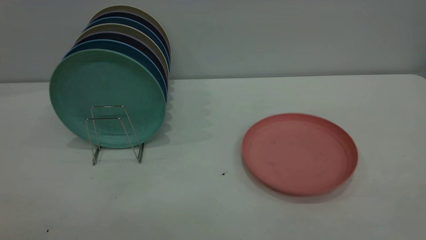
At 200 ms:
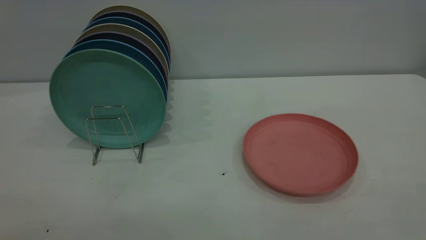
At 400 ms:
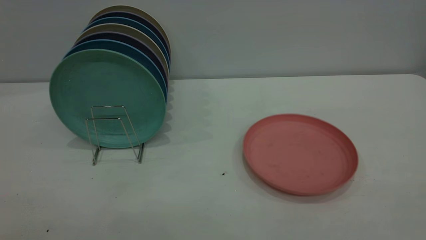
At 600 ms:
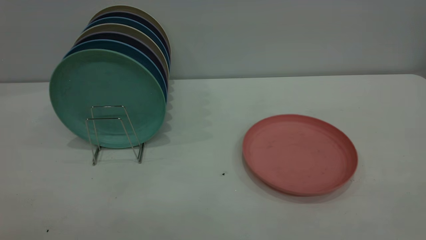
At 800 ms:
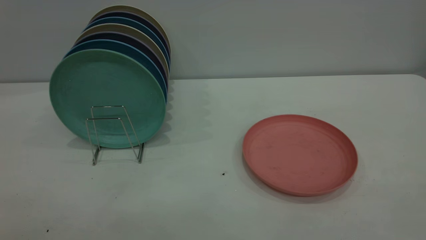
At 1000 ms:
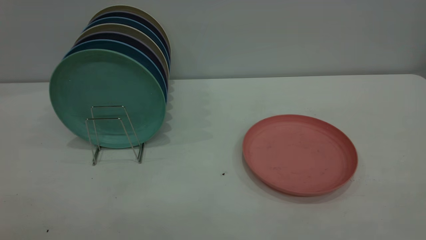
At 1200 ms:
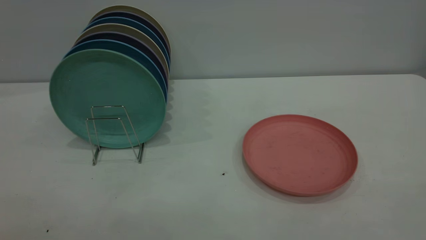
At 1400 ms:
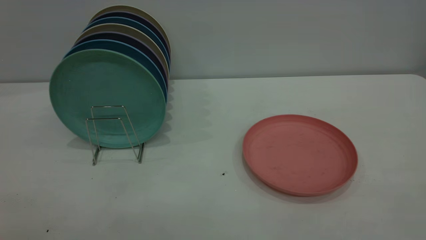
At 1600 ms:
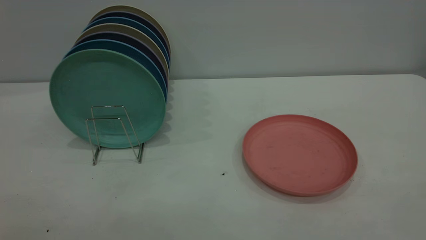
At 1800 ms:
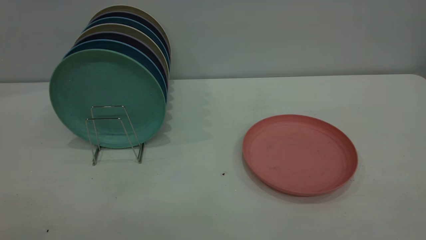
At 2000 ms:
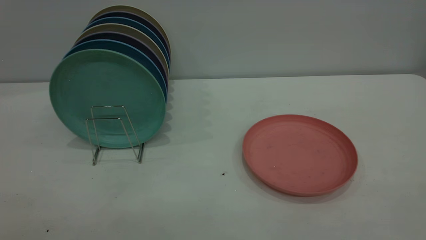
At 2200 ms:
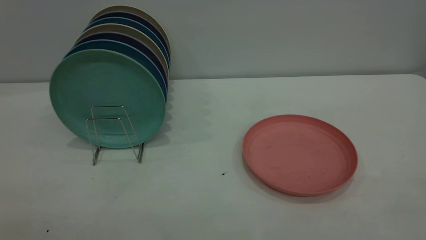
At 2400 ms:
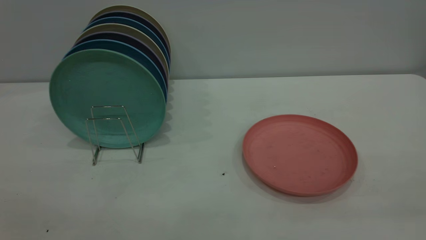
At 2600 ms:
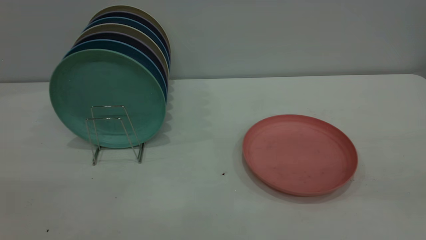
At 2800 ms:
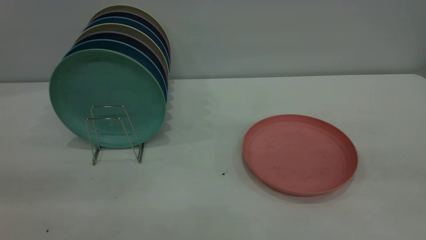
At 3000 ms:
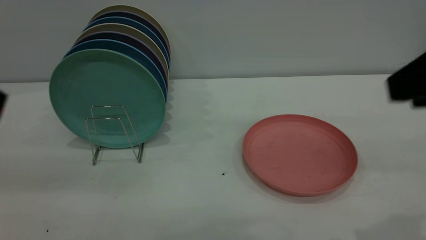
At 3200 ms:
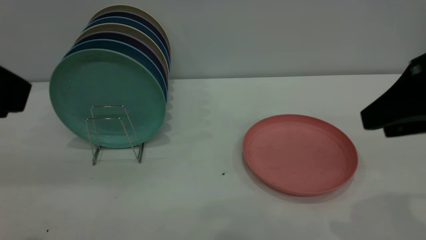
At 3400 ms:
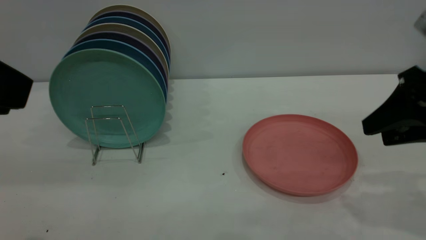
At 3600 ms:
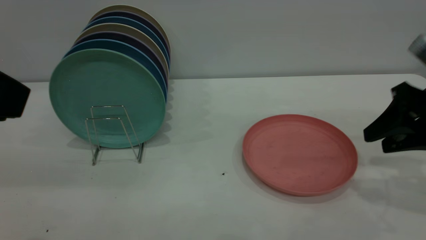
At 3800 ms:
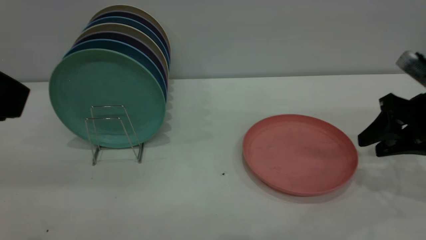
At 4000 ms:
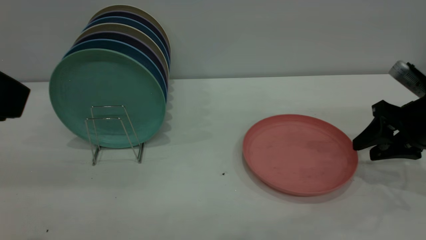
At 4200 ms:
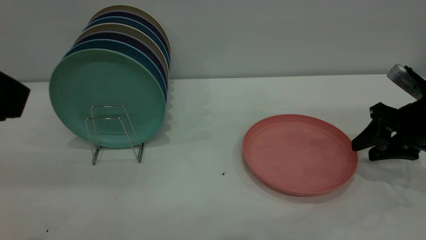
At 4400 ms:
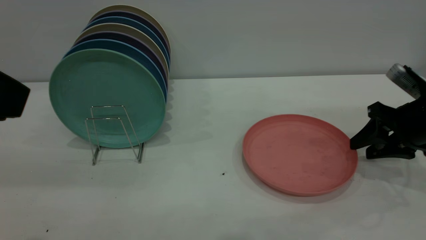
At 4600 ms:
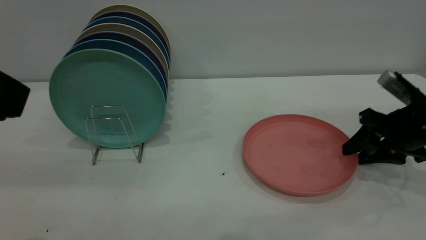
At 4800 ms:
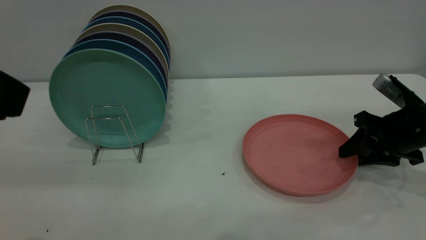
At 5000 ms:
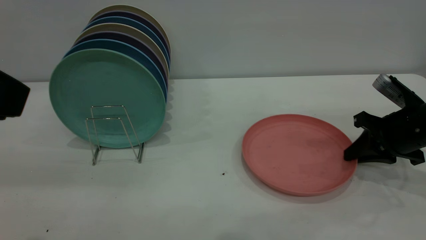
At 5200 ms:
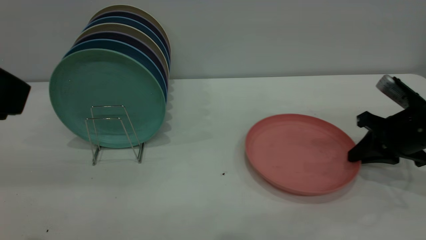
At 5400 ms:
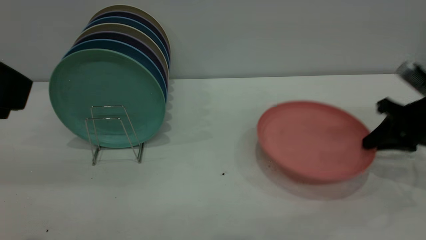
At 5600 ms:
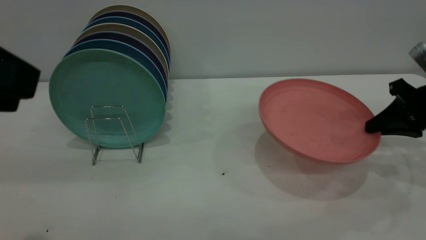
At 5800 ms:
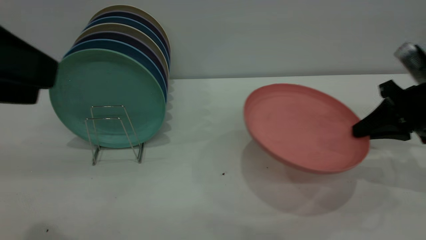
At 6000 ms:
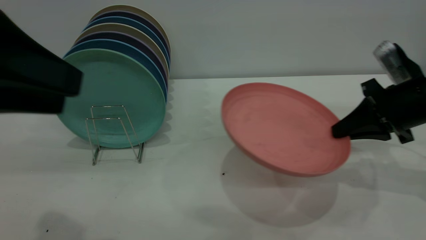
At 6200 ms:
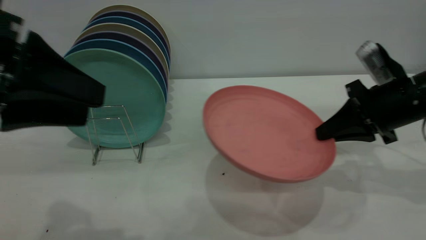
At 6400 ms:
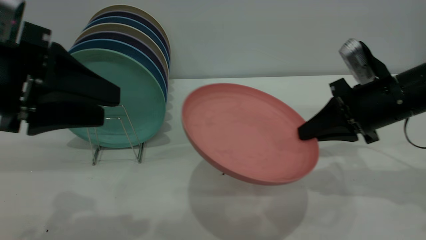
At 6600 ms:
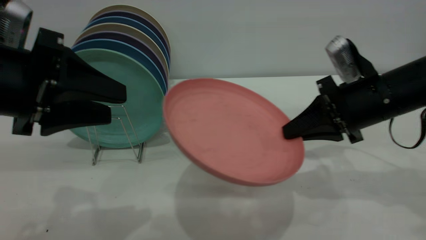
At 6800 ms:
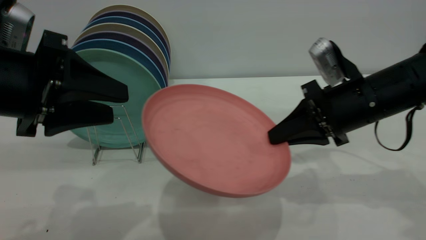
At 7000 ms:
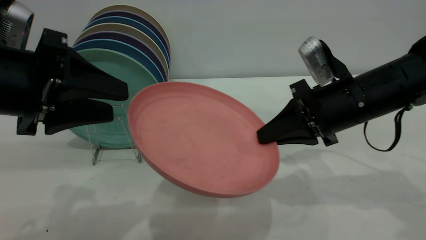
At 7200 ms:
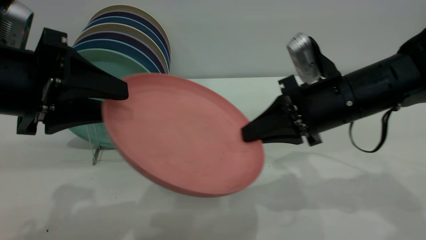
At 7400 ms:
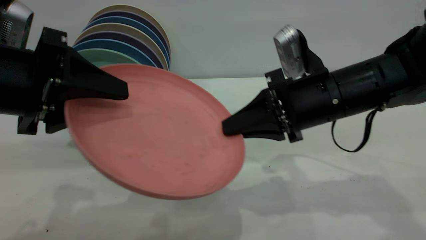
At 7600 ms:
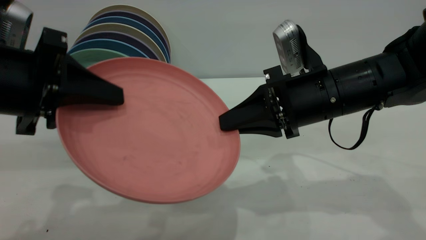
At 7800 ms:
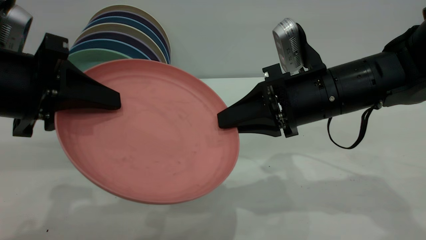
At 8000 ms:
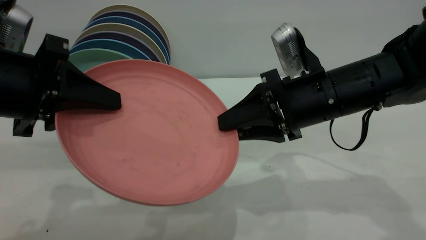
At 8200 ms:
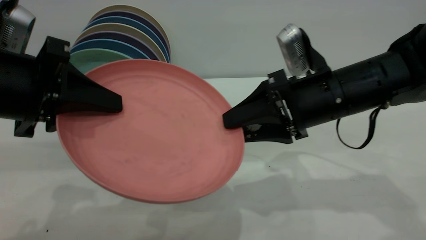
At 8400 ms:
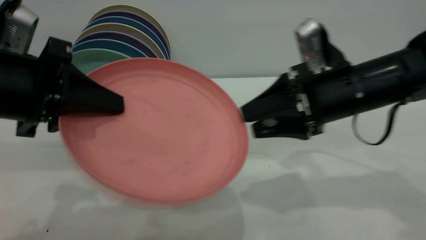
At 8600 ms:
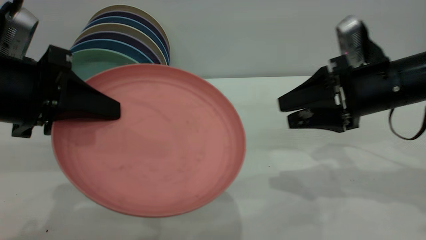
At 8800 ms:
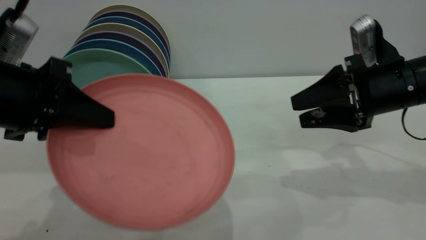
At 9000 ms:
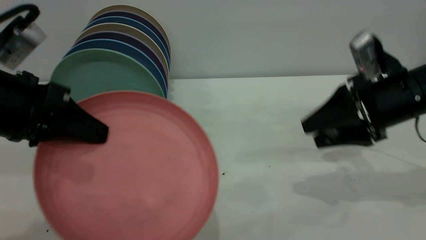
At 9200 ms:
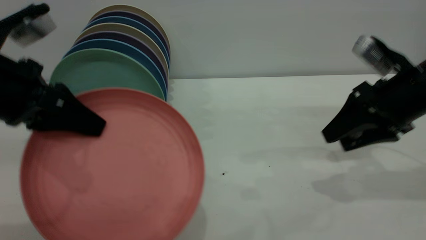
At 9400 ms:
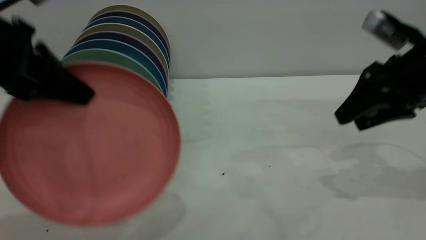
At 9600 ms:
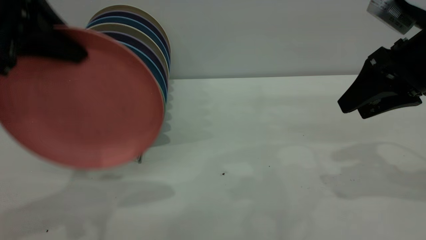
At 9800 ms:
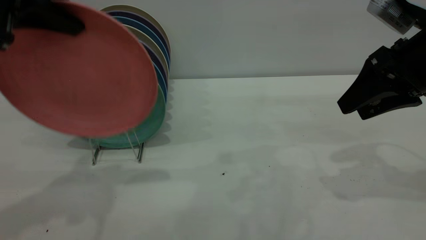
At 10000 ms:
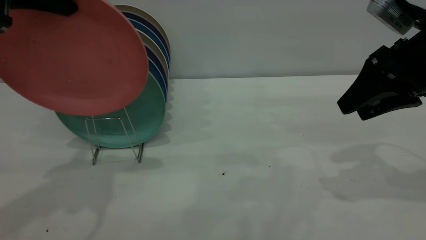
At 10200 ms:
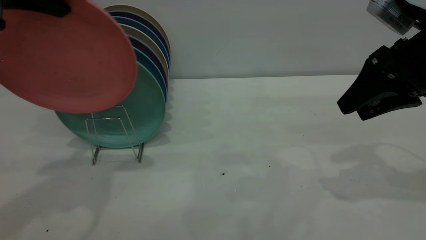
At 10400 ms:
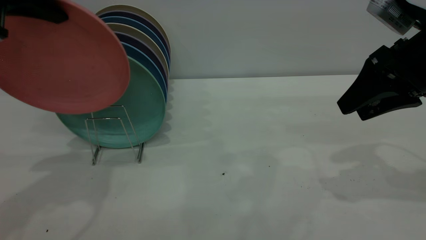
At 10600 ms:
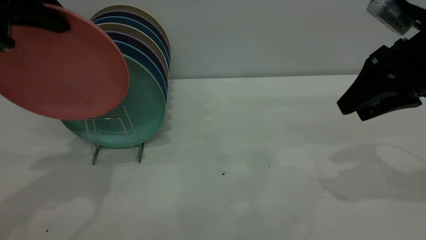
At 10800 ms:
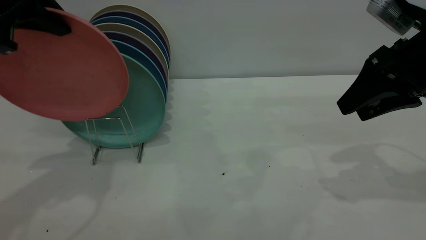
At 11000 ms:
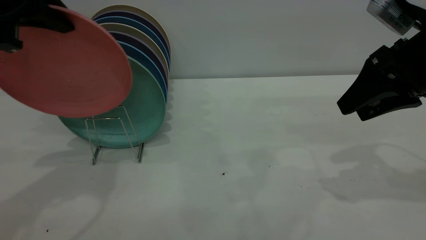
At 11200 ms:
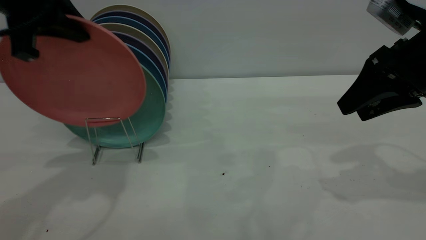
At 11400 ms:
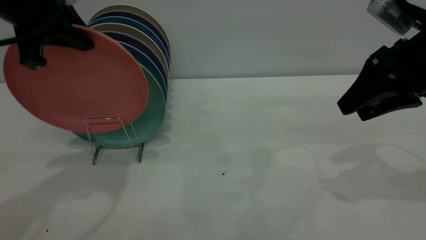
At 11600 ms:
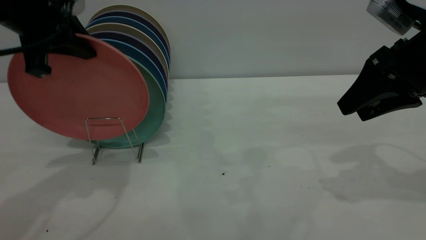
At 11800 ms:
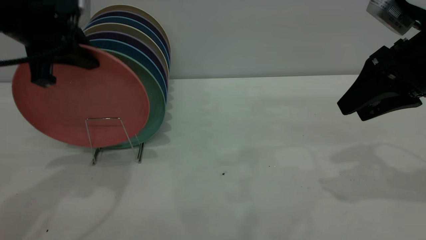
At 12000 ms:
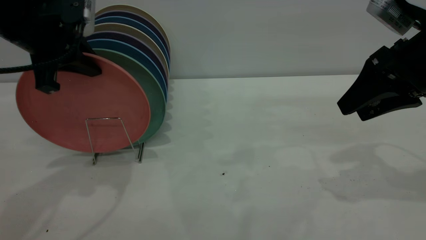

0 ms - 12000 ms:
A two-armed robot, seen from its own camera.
Task of the whole recording: the right gripper grasp the pink plate, the right gripper pass the pink plate to the left gripper, and the left gripper place the pink plate on the plate rack.
Step, 0 ms - 5400 ms: Pick up the plate with the right gripper.
Step, 5600 ms - 8400 ms: Pass the plate from the right gripper to the left gripper.
0 ms - 1600 ms: The two grippers keep their place.
1600 ms - 3000 ms: The right gripper is displaced forward by approximately 20 cm.
3000 ms - 4400 ms: The right gripper is displaced downward and forward by approximately 25 cm.
4400 ms - 6000 ms: The left gripper ends up some 5 cm from where it was. The right gripper shifts by approximately 5 cm, and closes up.
6000 ms - 7600 ms: The left gripper goes roughly 5 cm downward, and closes up, while the right gripper travels to the left by roughly 15 cm.
7600 ms - 9000 ms: The right gripper travels to the right by approximately 10 cm, and opens up.
9000 ms - 10400 ms: The left gripper travels upward and forward by about 15 cm. Meanwhile the right gripper goes approximately 5 cm upward.
10400 ms - 12000 ms: The left gripper is displaced downward by approximately 5 cm.

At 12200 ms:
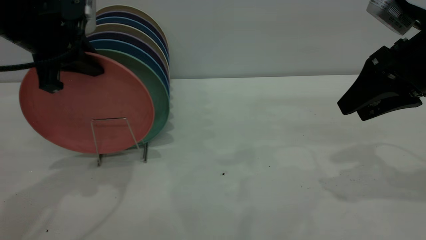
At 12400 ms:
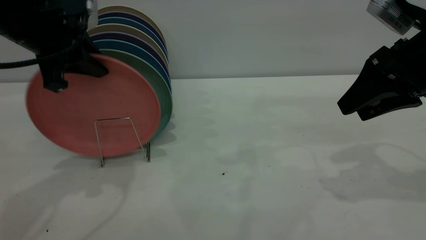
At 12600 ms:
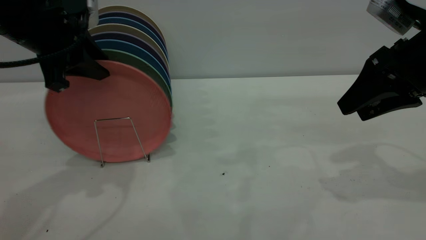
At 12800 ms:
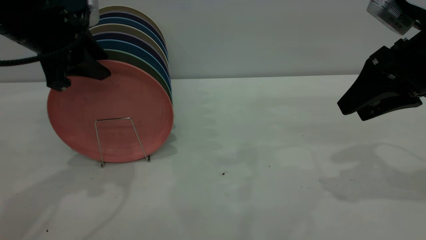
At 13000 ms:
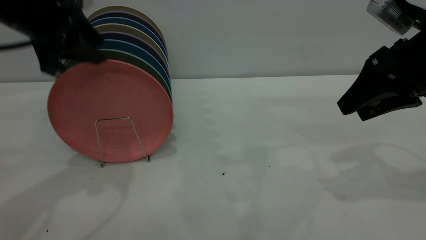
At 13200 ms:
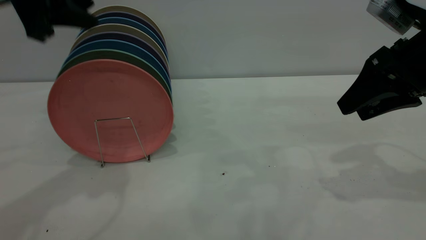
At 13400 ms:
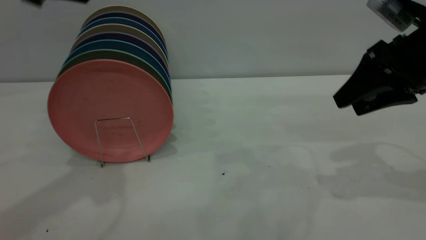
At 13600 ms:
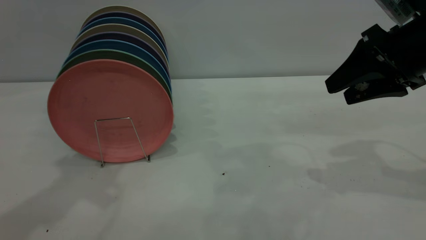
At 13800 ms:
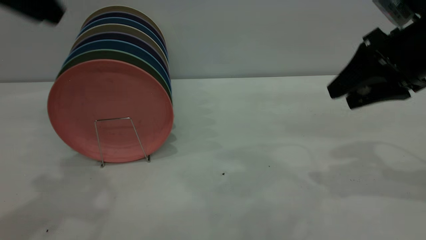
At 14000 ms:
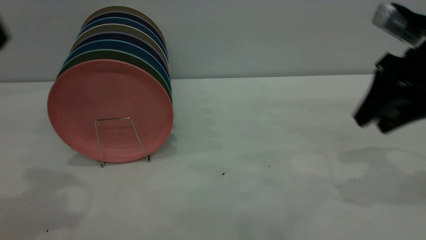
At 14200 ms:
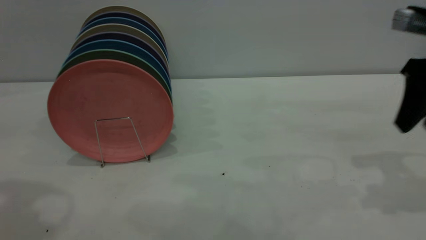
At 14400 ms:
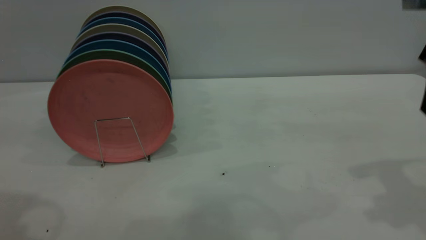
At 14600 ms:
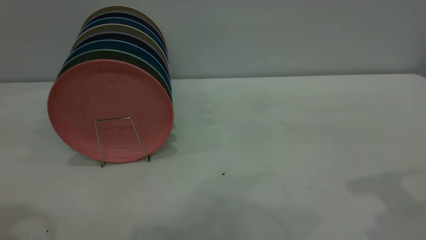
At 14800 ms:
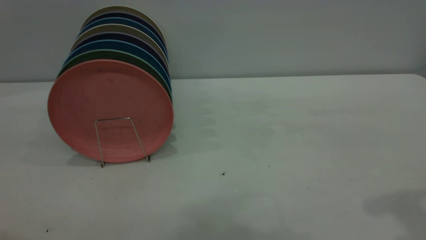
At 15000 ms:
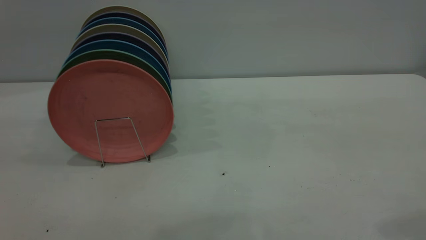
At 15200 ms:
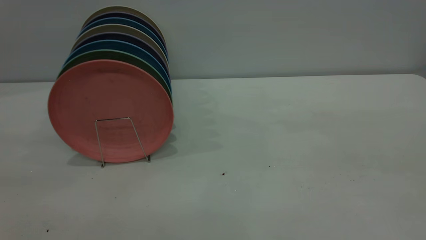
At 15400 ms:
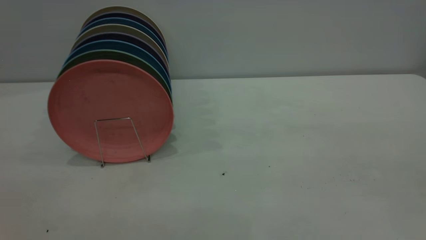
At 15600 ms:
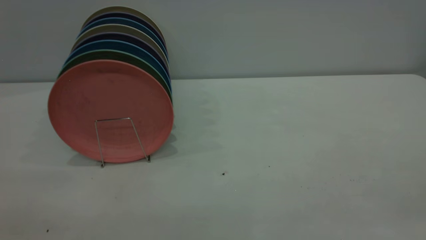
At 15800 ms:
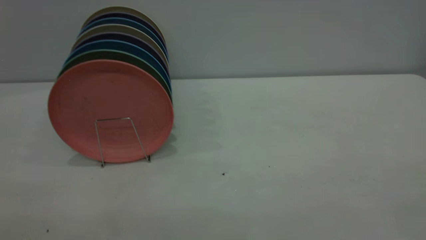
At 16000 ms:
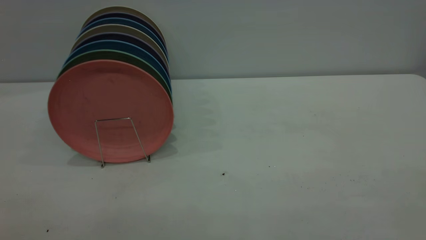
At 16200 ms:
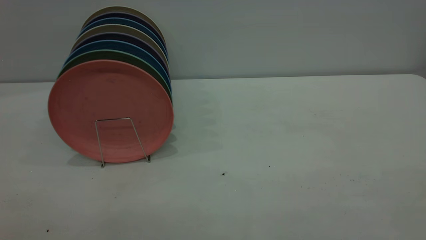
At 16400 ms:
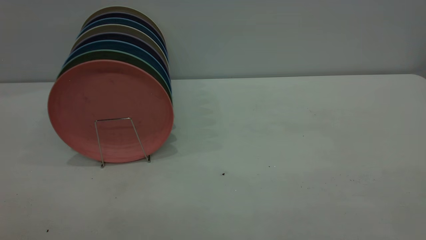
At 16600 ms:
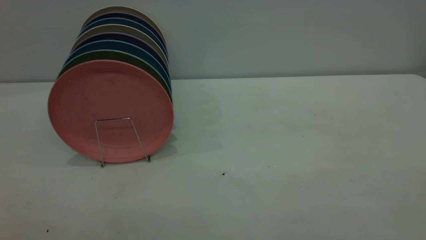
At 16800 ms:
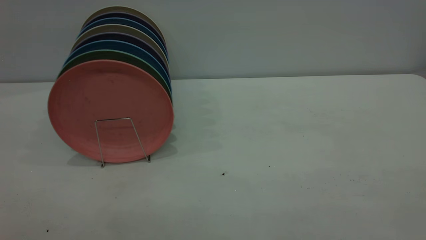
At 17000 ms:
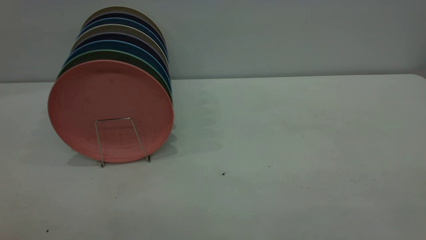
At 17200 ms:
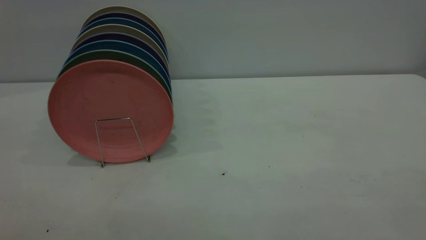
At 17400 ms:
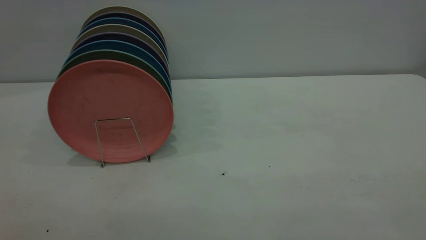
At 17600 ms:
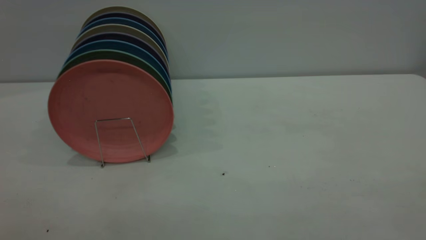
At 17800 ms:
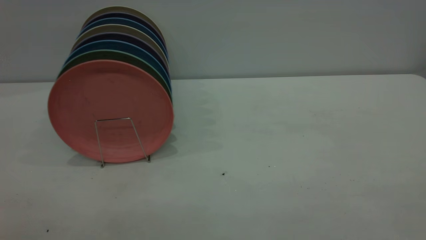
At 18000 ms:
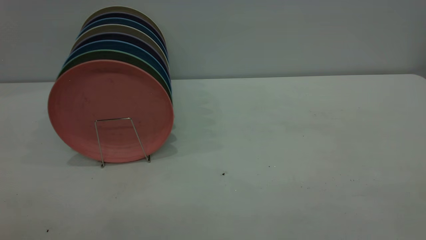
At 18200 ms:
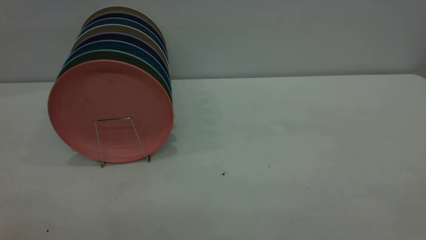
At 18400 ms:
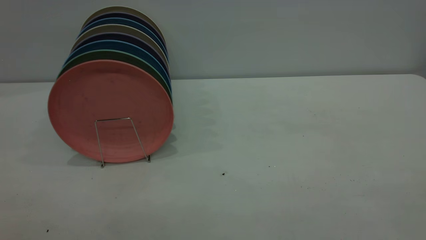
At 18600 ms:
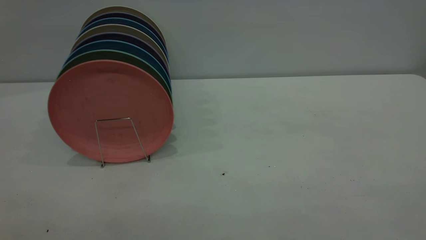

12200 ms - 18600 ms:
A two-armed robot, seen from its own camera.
Task of the whole recording: the right gripper grasp the pink plate, the right gripper pass the pink plate to the left gripper, and the left gripper place the pink plate on the plate rack.
12200 ms - 13800 ms: The left gripper shifts about 15 cm upward and backward, and opens its fingers.
13800 ms - 15400 ms: The left gripper goes roughly 25 cm backward, and opens its fingers. Meanwhile the right gripper is displaced backward and upward by roughly 35 cm.
